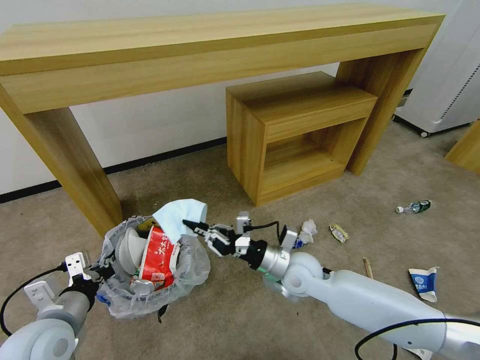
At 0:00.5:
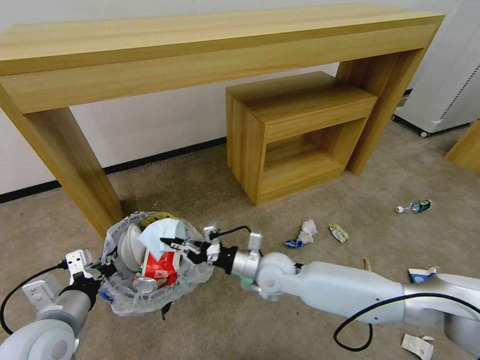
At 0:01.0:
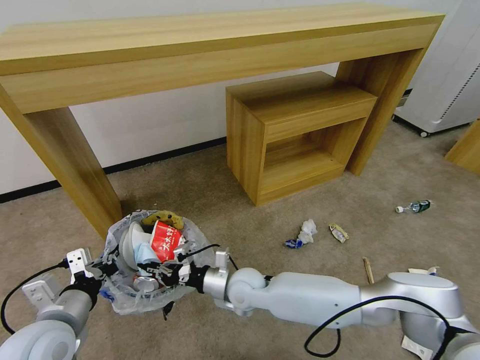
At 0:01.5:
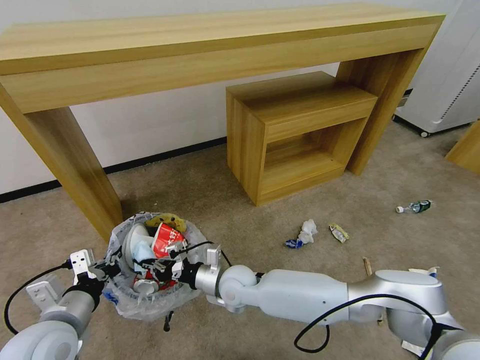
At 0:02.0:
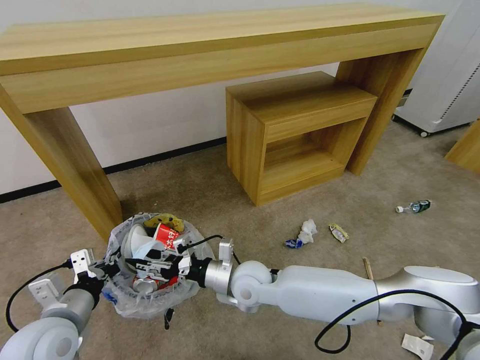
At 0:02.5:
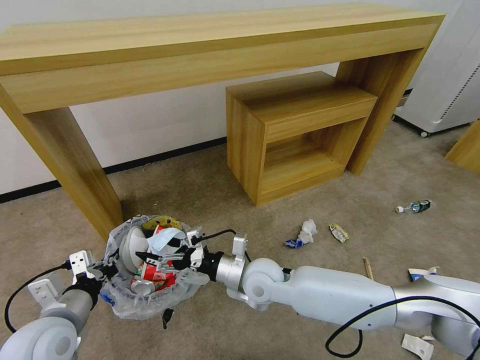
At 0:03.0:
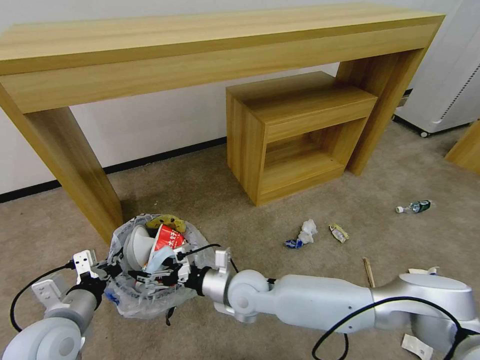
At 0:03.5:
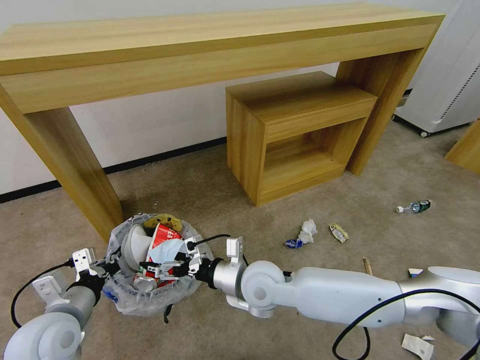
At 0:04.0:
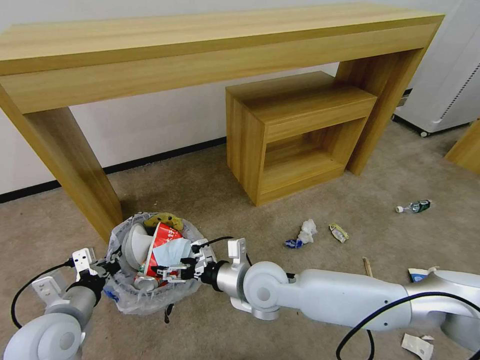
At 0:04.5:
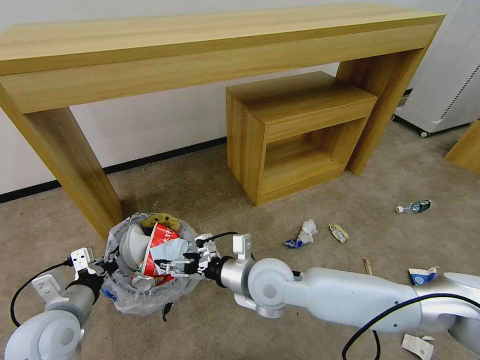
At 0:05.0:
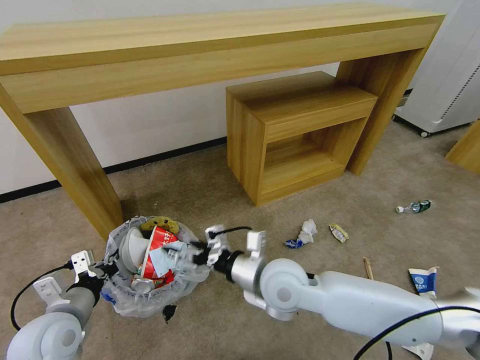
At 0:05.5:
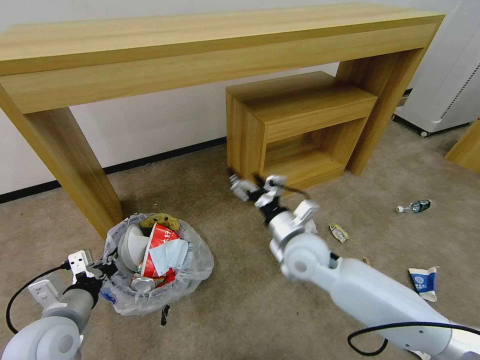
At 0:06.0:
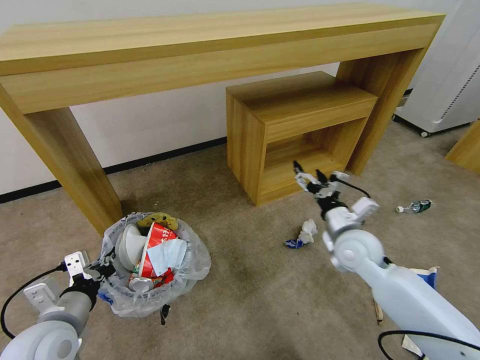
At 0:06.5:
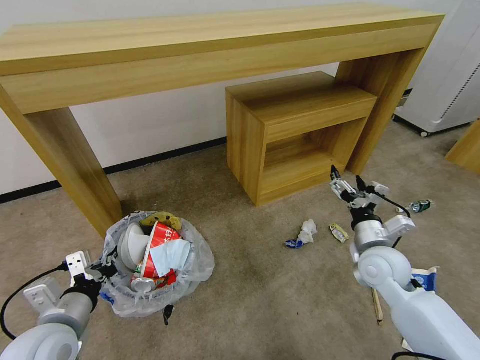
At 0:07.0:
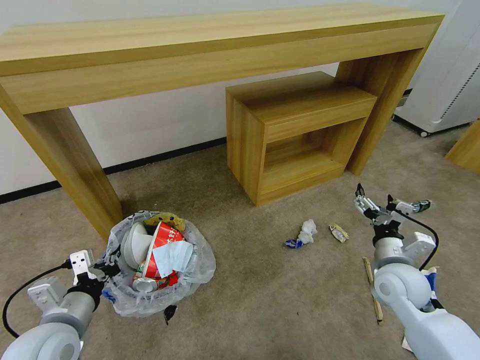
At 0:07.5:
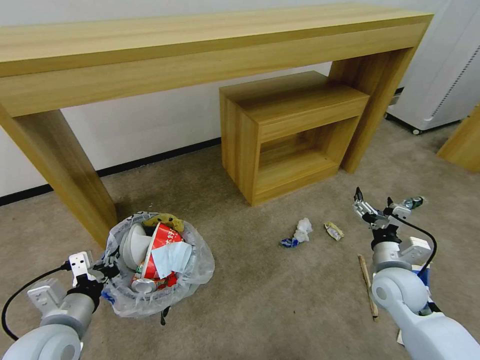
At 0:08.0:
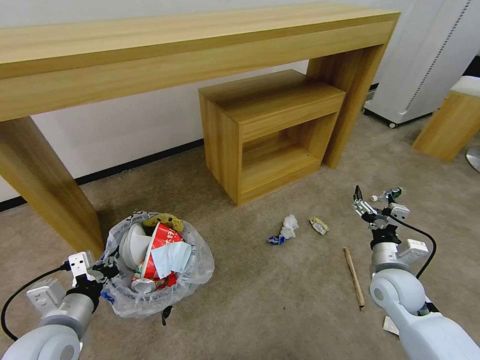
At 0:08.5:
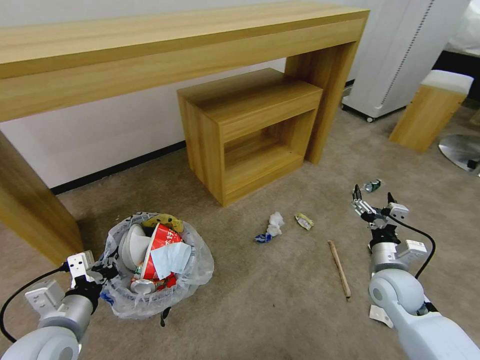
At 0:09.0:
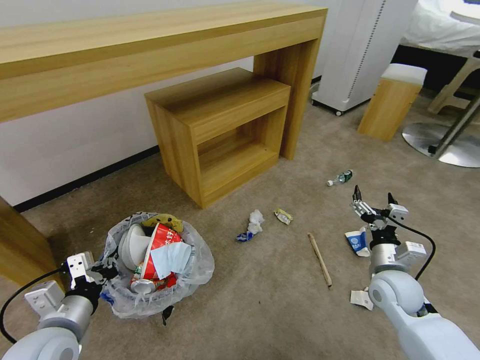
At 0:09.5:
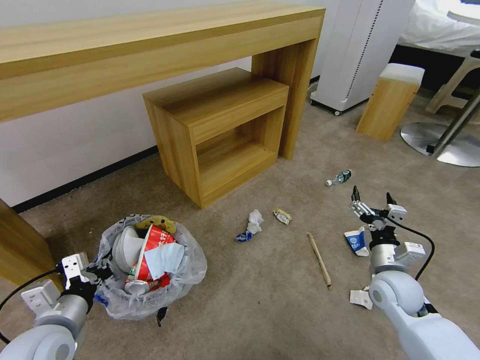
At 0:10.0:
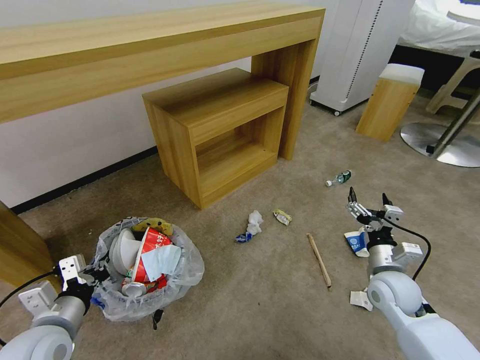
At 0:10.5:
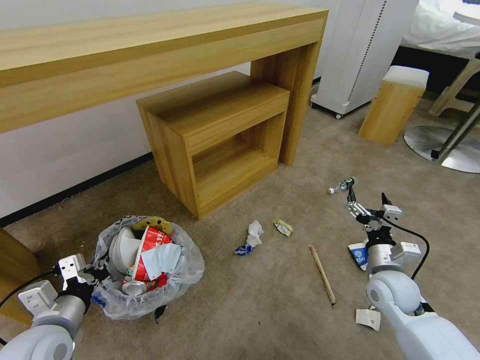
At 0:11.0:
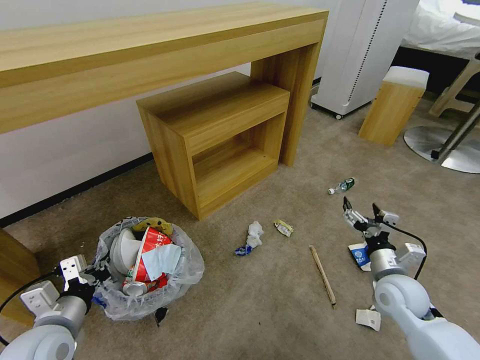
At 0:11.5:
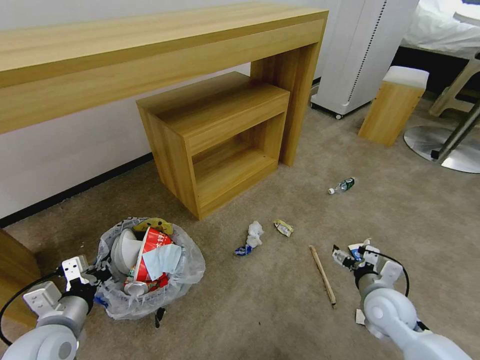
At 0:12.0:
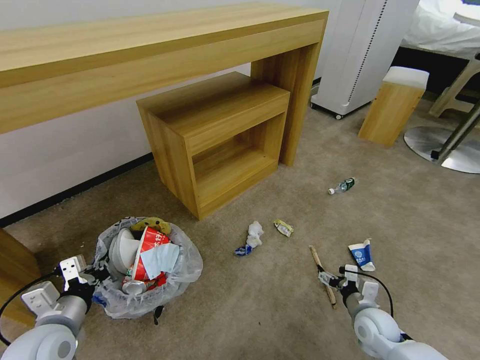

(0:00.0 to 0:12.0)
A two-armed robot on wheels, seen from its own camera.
Task of the whole recording: Pick up the trash bin and place the garbage on the floor into it.
0:00.0 - 0:02.0: The right gripper goes some 10 cm to the left, and opens.
0:02.0 - 0:04.0: The right gripper moves some 5 cm, and opens its fingers.
0:04.0 - 0:06.0: The right gripper is displaced to the right by about 20 cm.
0:06.0 - 0:08.0: The right gripper heads to the right, backward and downward, covering approximately 10 cm.
0:10.0 - 0:12.0: The right gripper goes about 10 cm downward.

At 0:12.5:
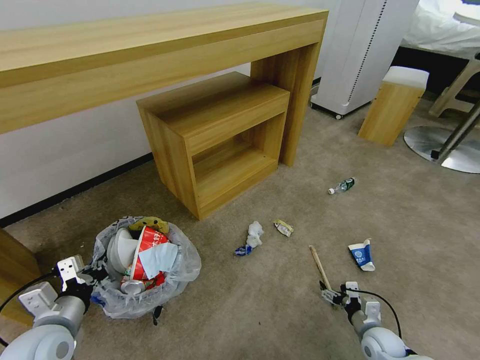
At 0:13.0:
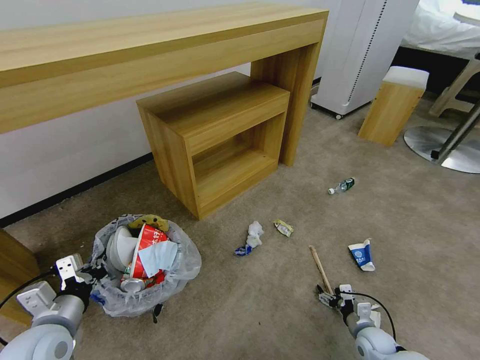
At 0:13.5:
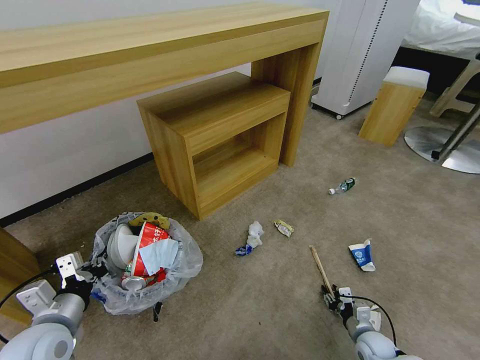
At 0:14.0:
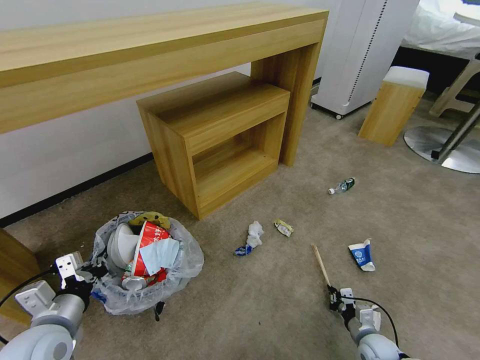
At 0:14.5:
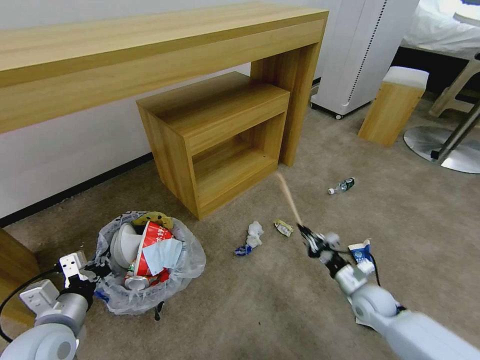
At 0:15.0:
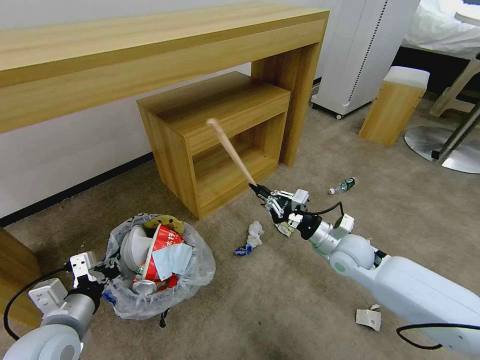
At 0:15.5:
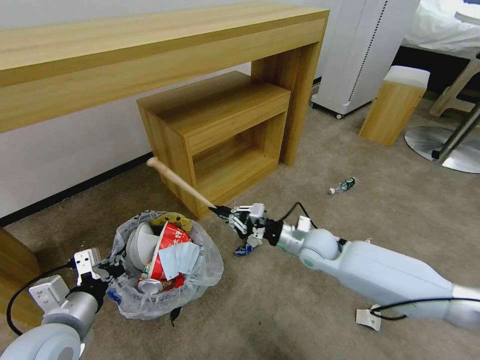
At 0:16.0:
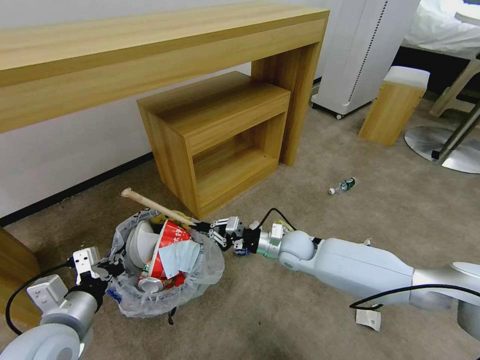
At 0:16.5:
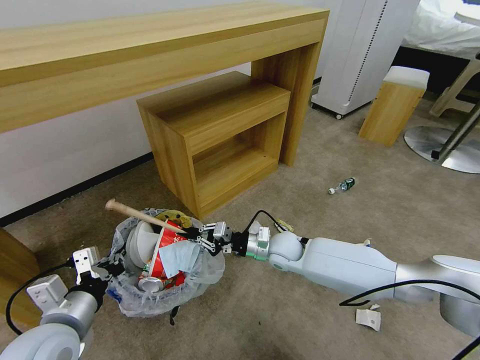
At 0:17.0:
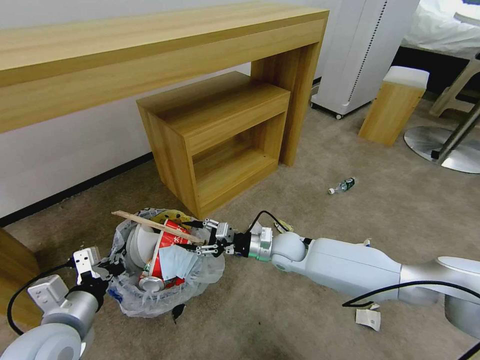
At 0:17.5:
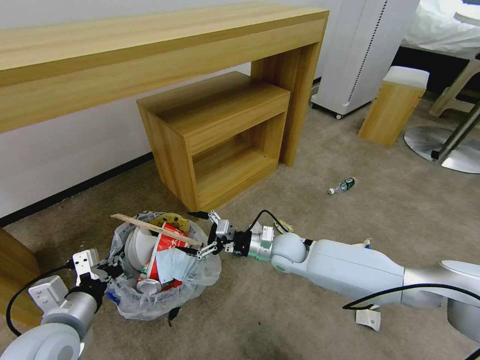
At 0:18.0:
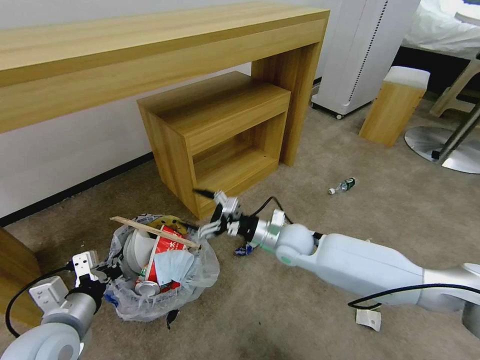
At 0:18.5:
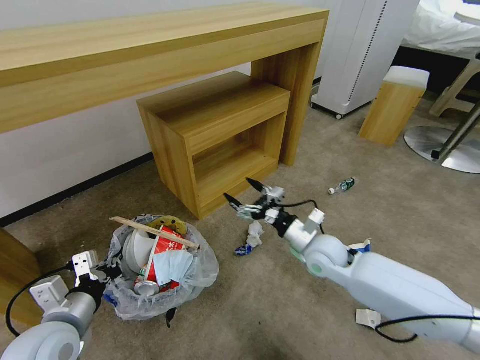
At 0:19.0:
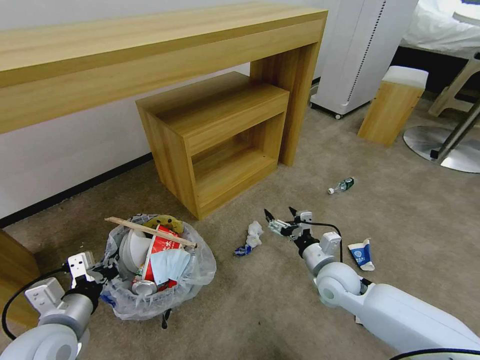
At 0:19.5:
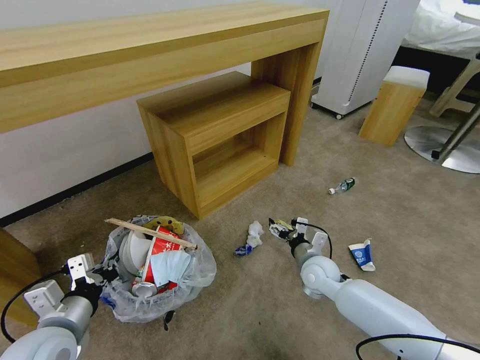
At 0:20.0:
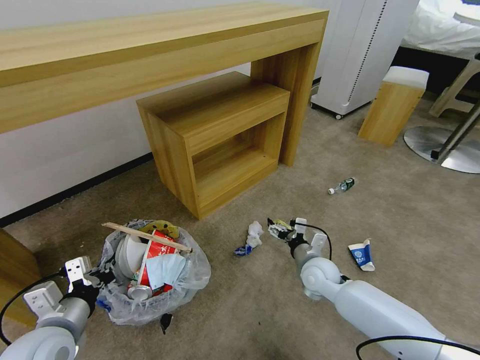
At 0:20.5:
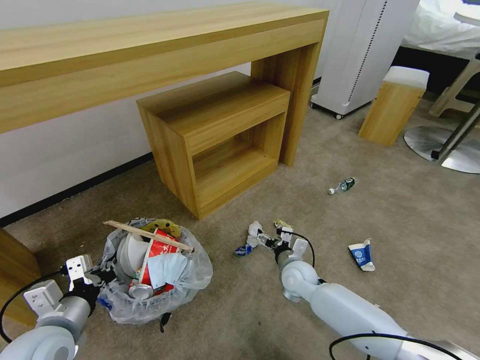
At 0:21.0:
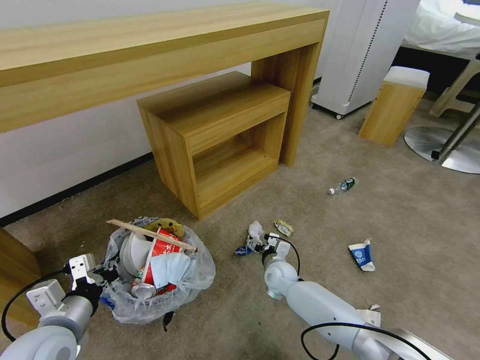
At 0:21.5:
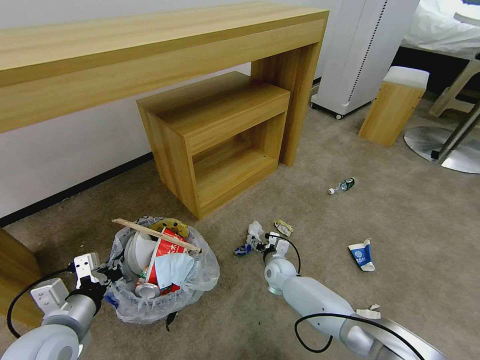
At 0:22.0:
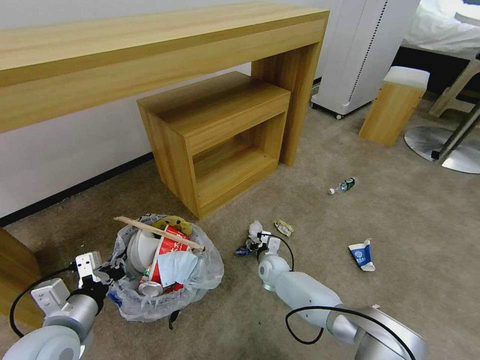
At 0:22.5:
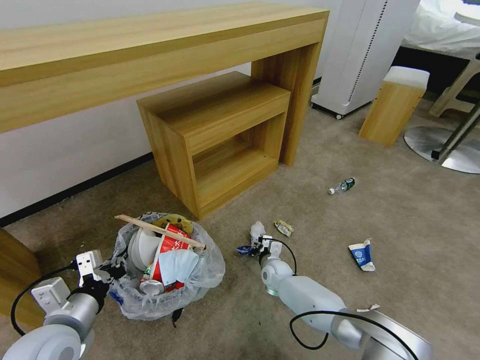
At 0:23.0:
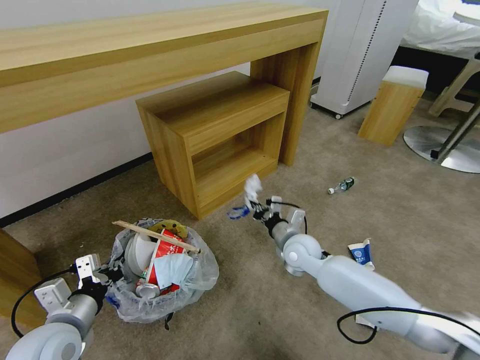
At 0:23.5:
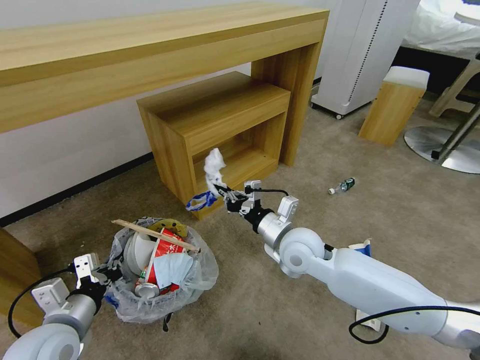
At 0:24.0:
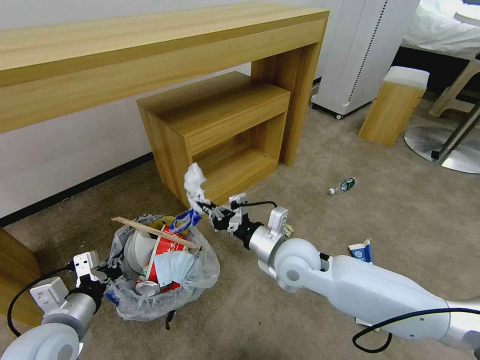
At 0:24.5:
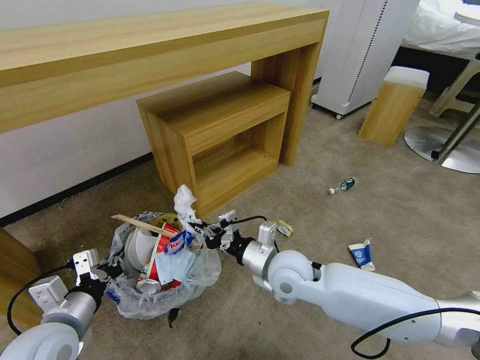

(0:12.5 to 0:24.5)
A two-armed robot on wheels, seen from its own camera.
Task of the whole recording: Pick up the trash bin and place the garbage on the floor into it.
0:12.5 - 0:14.5: The right gripper heads upward and forward, covering approximately 10 cm, and closes up.
0:14.5 - 0:16.5: The left gripper shifts by roughly 5 cm, while the right gripper travels to the left and forward by some 25 cm.
0:16.5 - 0:18.5: The right gripper shifts approximately 10 cm to the right and upward, and opens its fingers.
0:18.5 - 0:20.5: The right gripper goes roughly 10 cm downward.
0:20.5 - 0:22.5: The right gripper shifts approximately 10 cm downward and forward, and closes up.
0:22.5 - 0:24.5: The right gripper shifts roughly 25 cm upward and backward.

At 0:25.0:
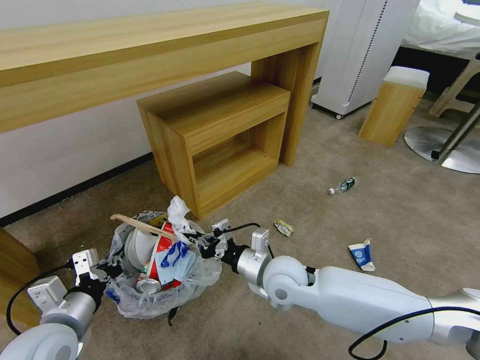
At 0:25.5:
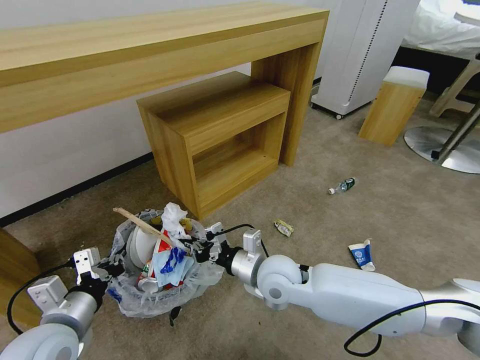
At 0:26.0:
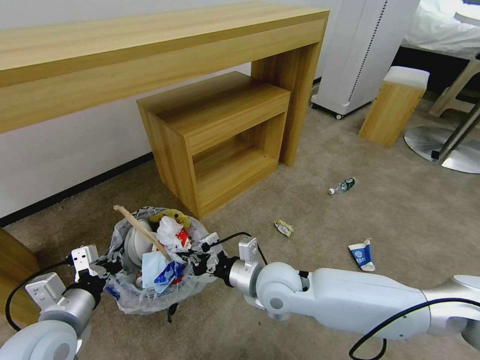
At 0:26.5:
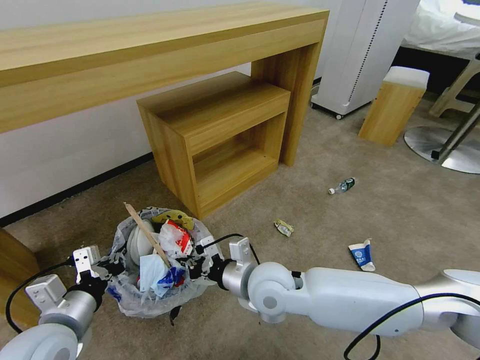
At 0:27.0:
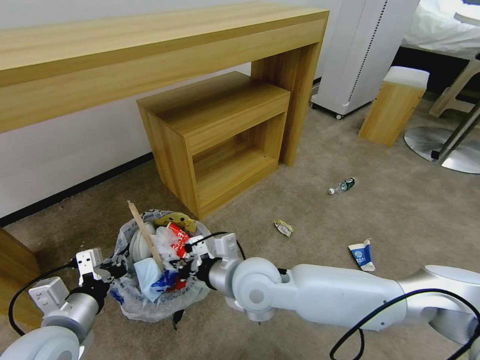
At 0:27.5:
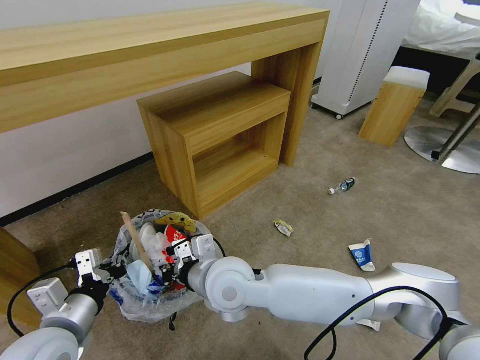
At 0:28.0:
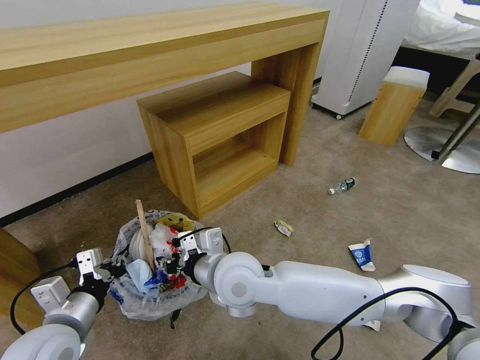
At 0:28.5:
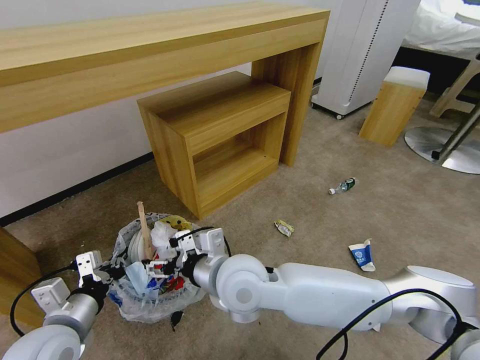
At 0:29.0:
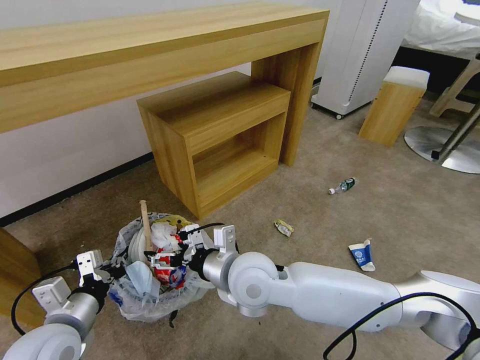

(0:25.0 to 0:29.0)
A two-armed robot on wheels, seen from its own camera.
Task of the whole recording: Pick up the trash bin and place the garbage on the floor into it.
0:25.0 - 0:27.0: The right gripper travels to the left and upward by approximately 10 cm.
0:27.0 - 0:29.0: The right gripper opens up.
